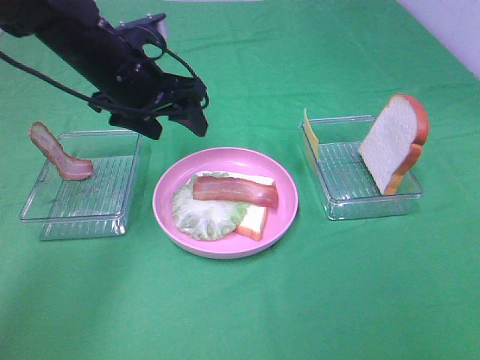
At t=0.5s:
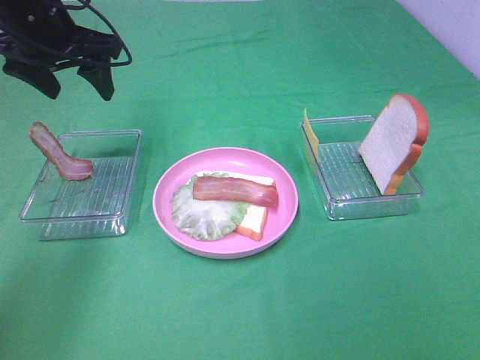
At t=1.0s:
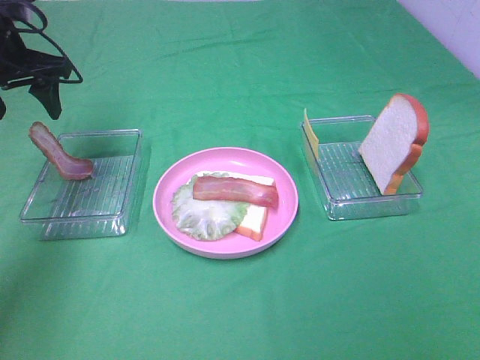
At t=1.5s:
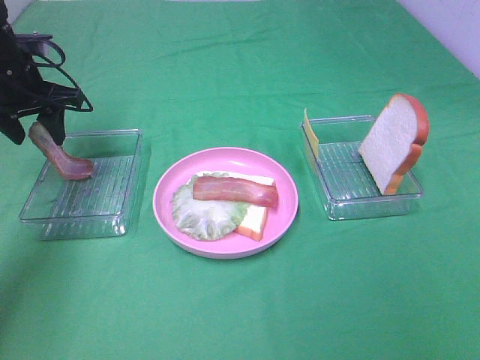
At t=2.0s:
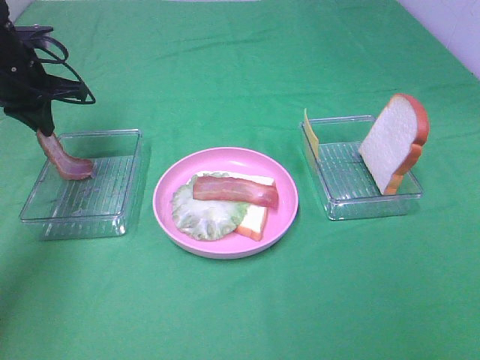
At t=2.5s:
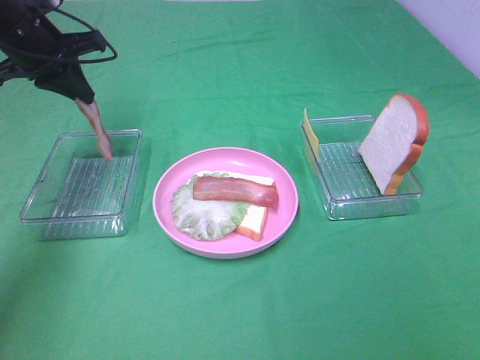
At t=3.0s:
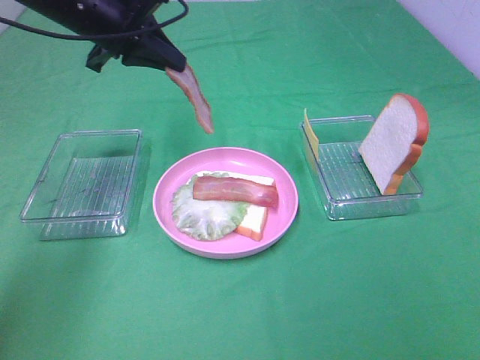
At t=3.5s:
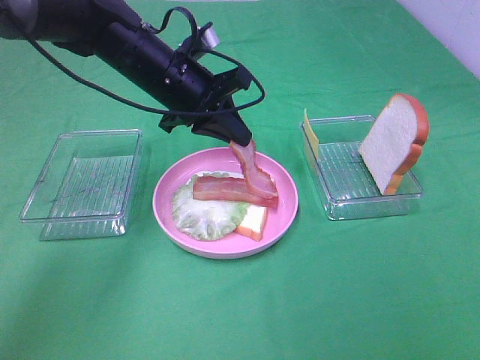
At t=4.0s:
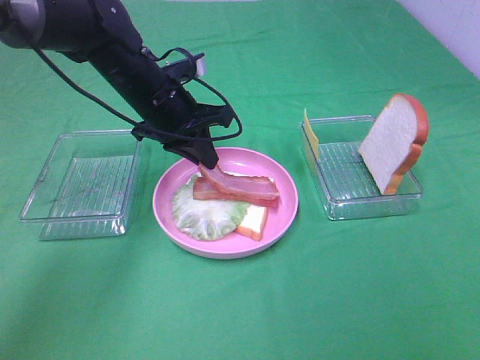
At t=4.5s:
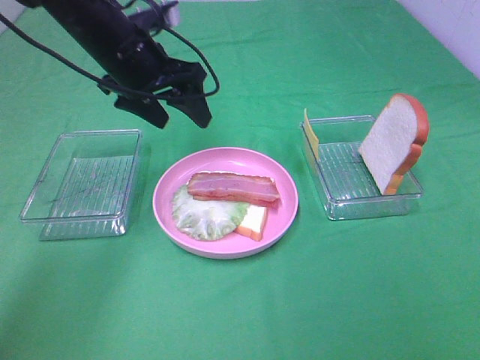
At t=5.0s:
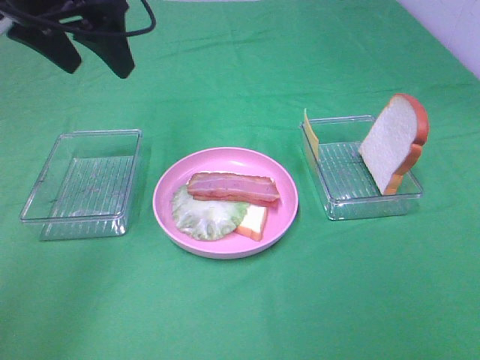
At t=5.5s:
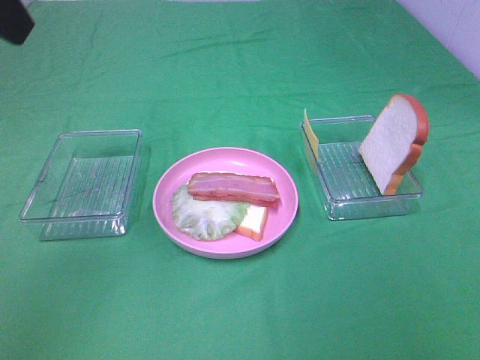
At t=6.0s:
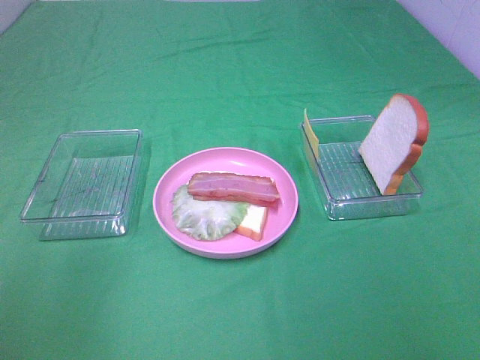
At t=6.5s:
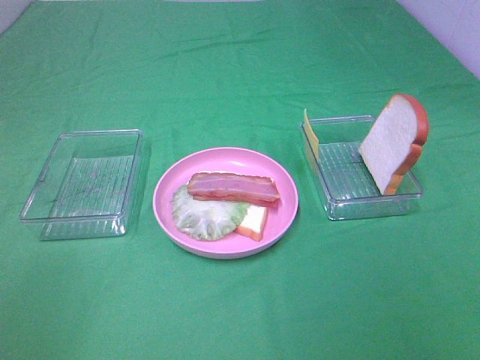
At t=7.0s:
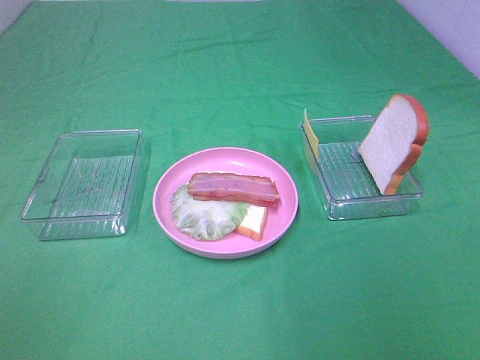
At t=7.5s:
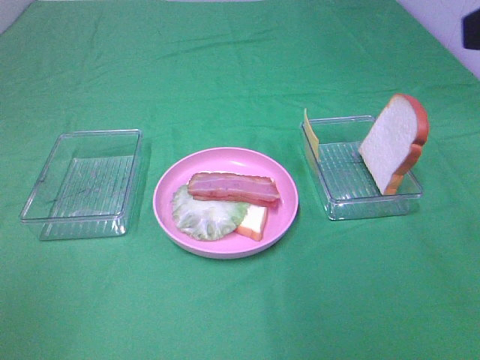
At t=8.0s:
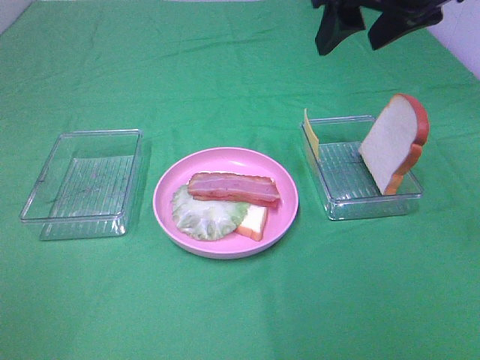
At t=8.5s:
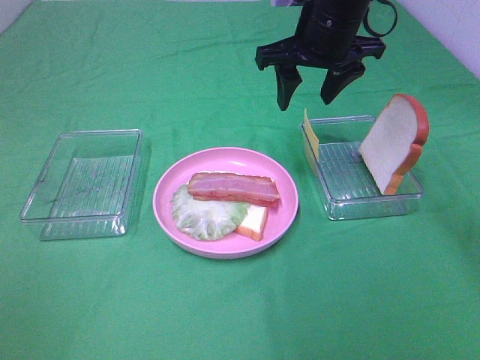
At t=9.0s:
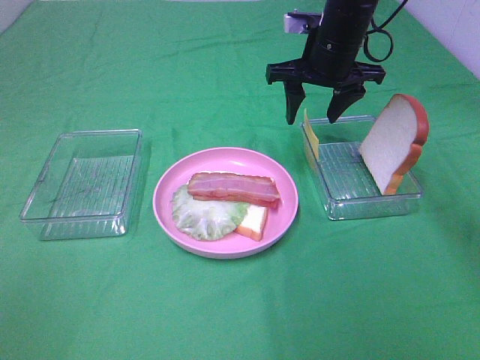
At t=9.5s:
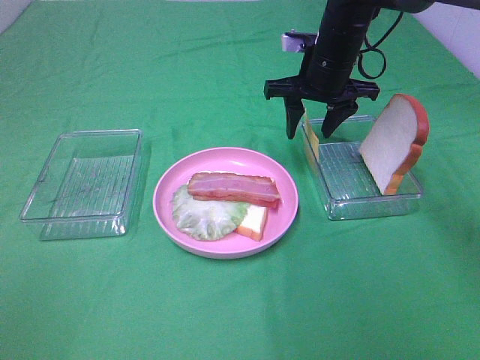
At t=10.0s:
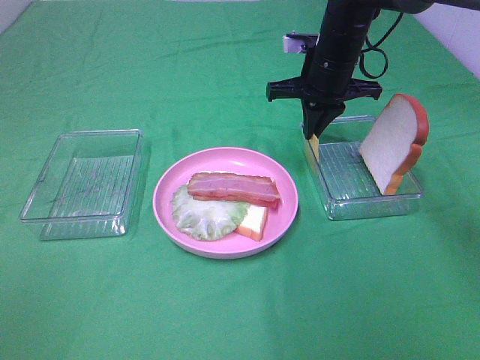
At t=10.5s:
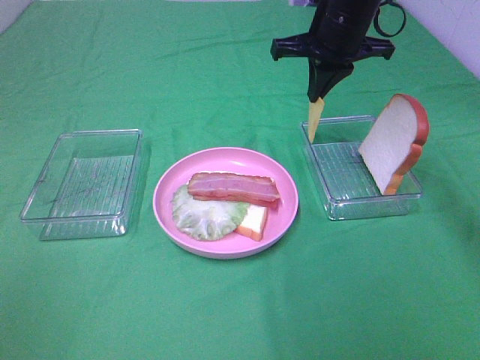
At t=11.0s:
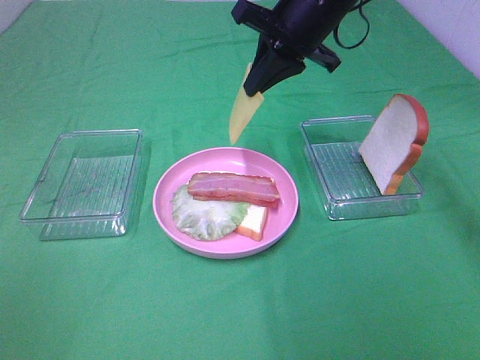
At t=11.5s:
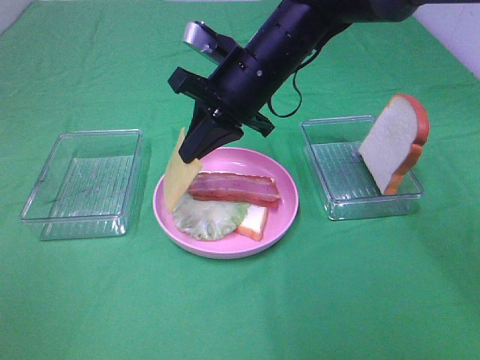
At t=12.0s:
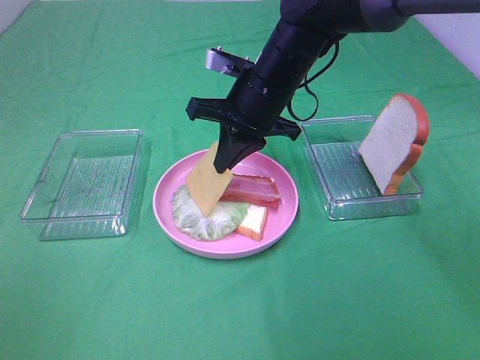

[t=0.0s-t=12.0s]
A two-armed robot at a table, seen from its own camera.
Task of the whole recording: Make sandwiches.
Step, t=0.0s to t=2.0s: Left hand:grab the bacon.
Step, t=2.5s to t=4.0s: Left hand:place bacon on bacon.
Step, t=4.5s to t=10.0s: Right hand:grab the cheese slice.
t=0.0s to t=2.0s: The left gripper goes roughly 15 cm to the left and forward, and closes its fingers.
t=2.0s to t=4.0s: The left gripper goes some 20 cm to the right.
t=4.0s to t=6.0s: The left gripper shifts approximately 35 cm backward, upward and to the left, and opens.
t=6.0s to t=8.0s: The left gripper heads backward, covering roughly 15 cm. Meanwhile the right gripper goes some 35 cm forward and to the left.
t=8.0s to t=10.0s: The right gripper travels downward and forward by some 20 cm, and closes its fingers.
t=10.0s to t=12.0s: The right gripper travels to the left and backward by about 10 cm.

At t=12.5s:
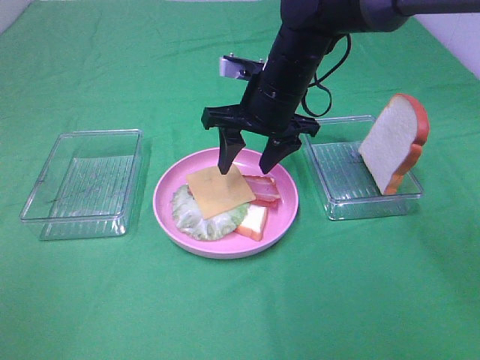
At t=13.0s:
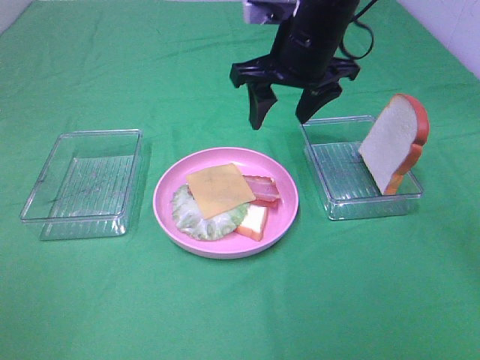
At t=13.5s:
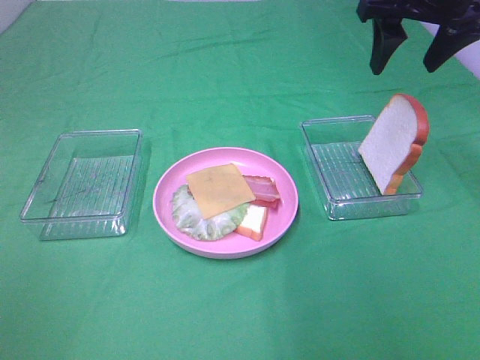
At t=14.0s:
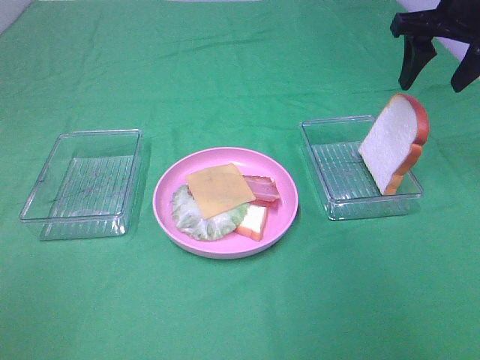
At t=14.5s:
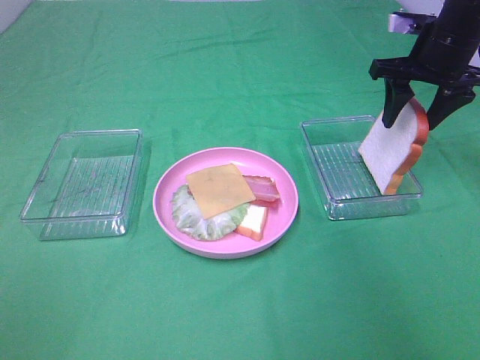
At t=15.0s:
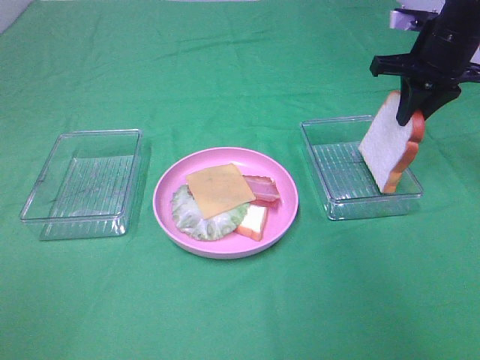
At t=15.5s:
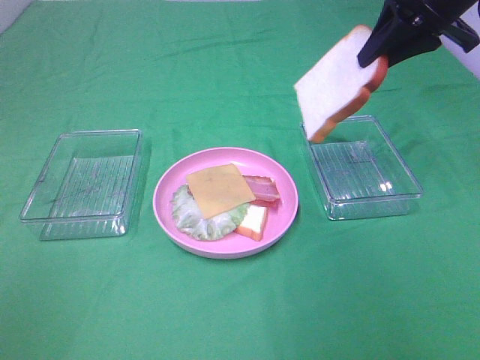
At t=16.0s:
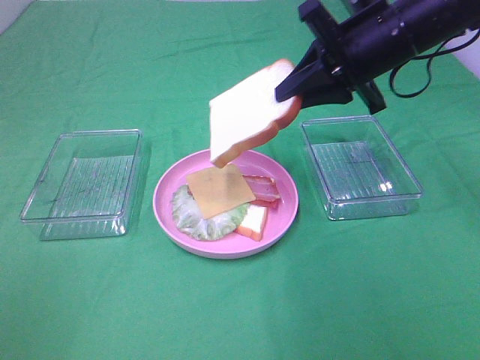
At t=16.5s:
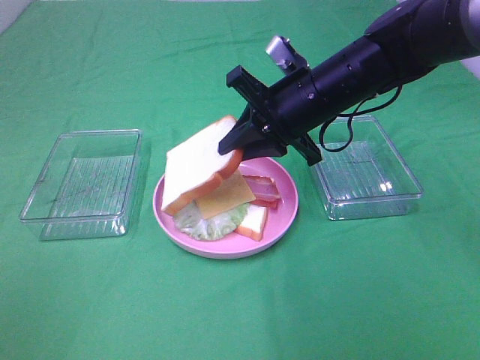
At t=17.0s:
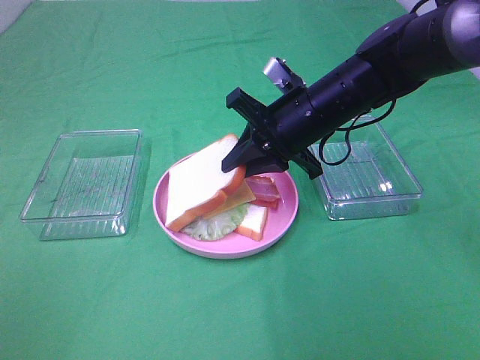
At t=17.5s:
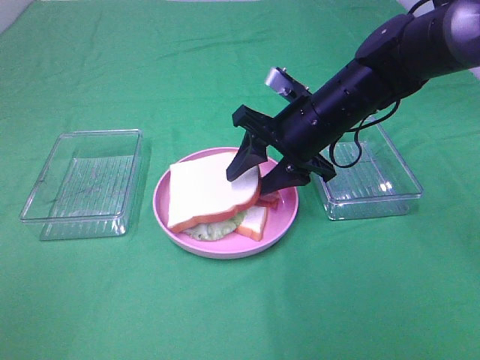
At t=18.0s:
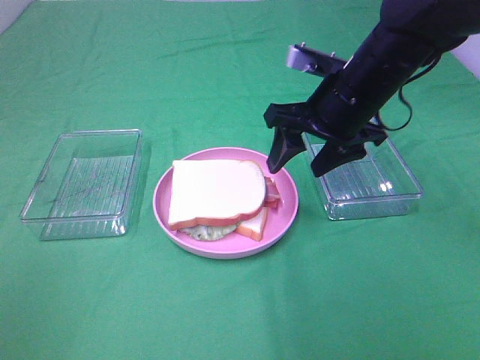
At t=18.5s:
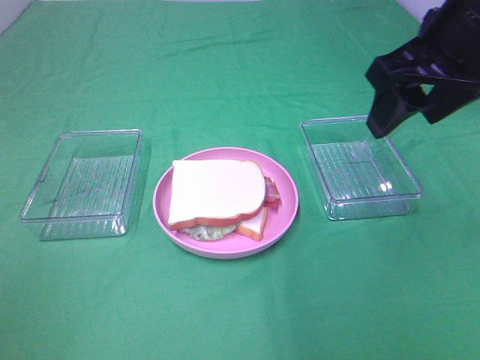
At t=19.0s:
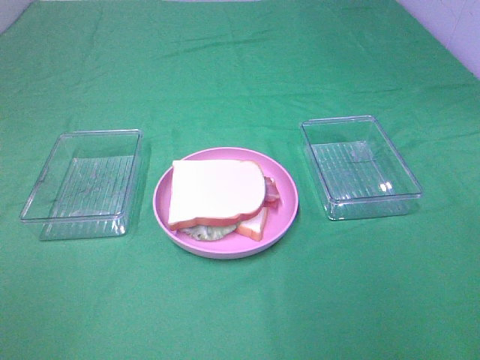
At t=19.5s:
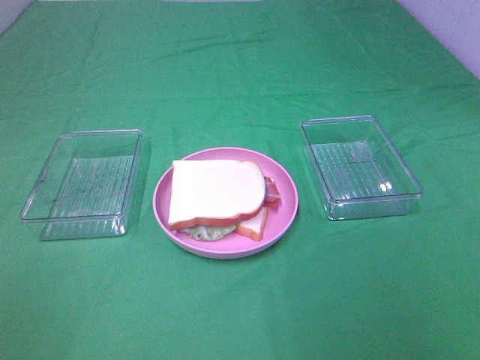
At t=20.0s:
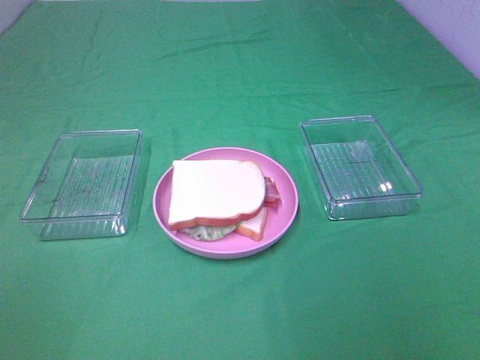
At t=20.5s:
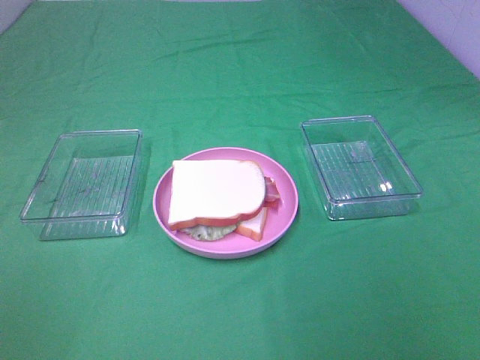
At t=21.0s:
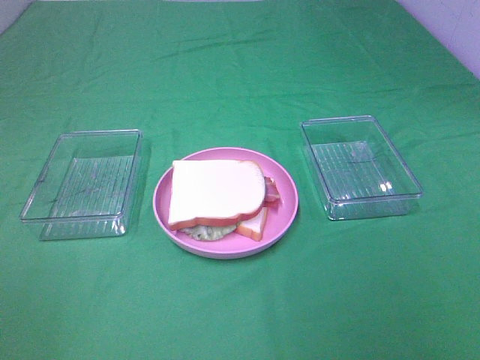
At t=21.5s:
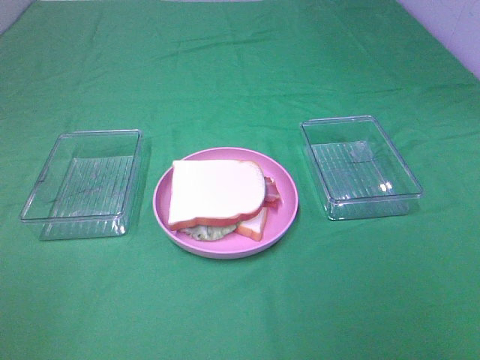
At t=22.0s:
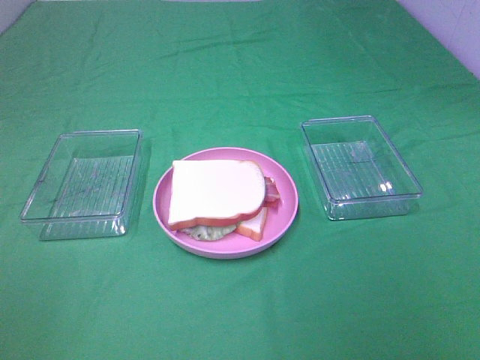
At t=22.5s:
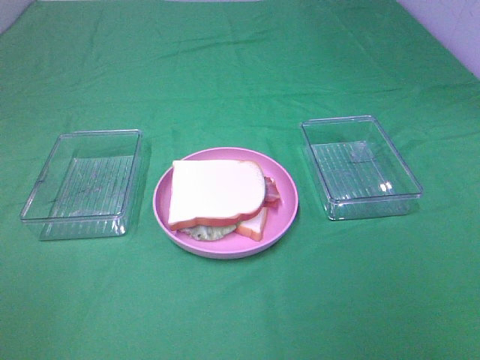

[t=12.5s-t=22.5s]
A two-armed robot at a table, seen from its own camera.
Task of the whole recording: Make sandwiches.
Step, t=15.0s to t=17.5s: Right hand:place the bread slice on the cheese slice.
t=12.5s to t=14.5s: The right gripper heads to the right, covering about 20 cm.
t=14.5s to t=16.5s: The right gripper is displaced to the left and backward by some 20 cm, and closes up.
t=16.5s to t=18.5s: The right gripper travels upward, backward and to the right by about 20 cm, and opens its fingers.
t=18.5s to t=20.5s: The right gripper goes roughly 25 cm backward.

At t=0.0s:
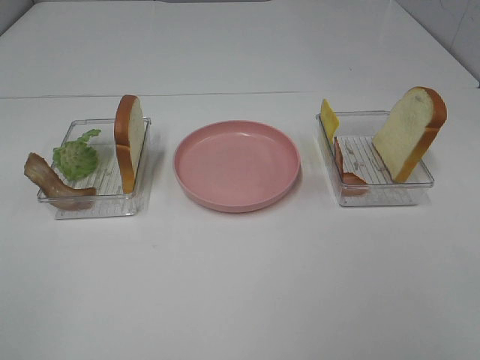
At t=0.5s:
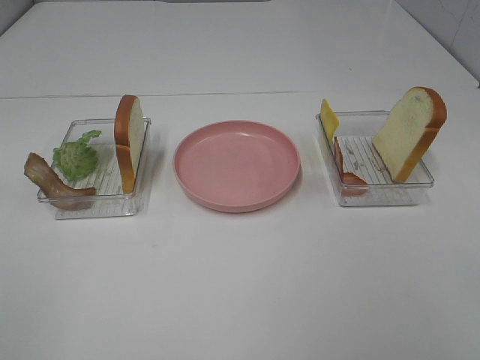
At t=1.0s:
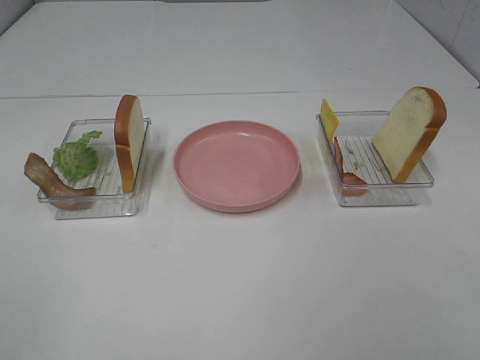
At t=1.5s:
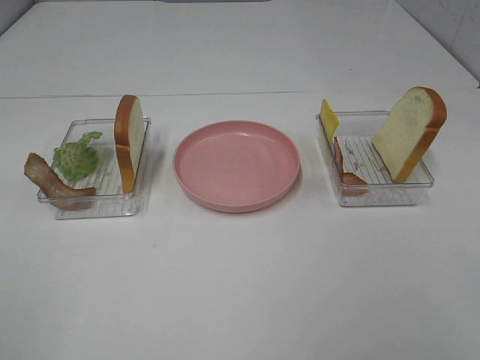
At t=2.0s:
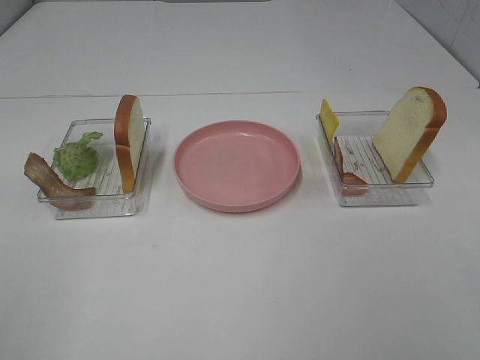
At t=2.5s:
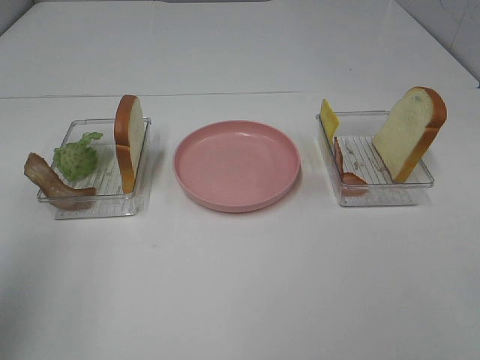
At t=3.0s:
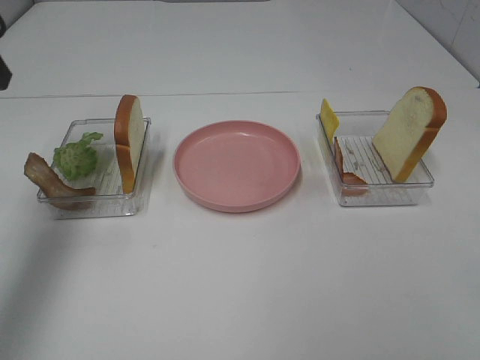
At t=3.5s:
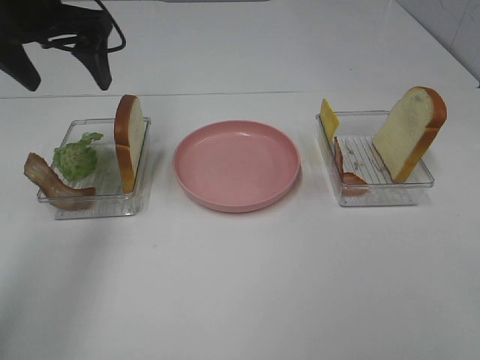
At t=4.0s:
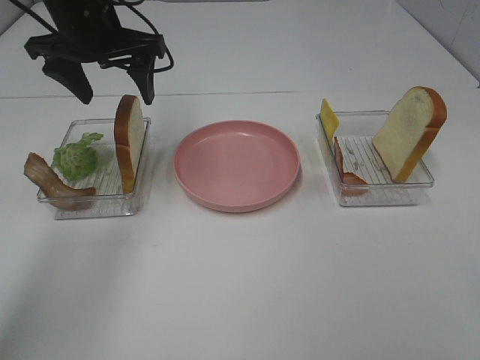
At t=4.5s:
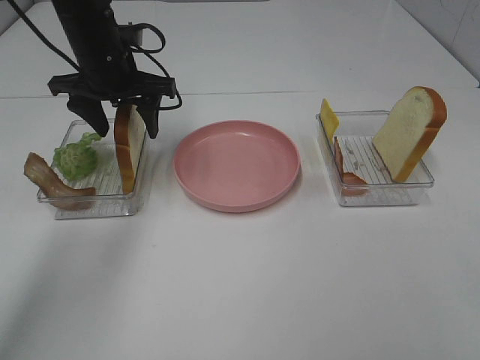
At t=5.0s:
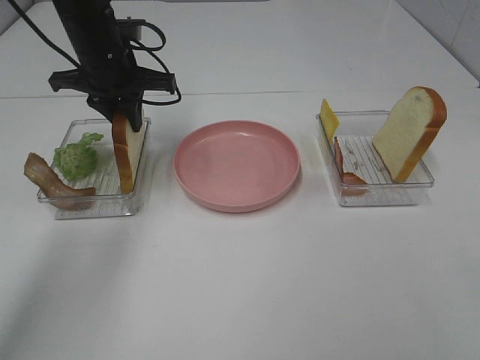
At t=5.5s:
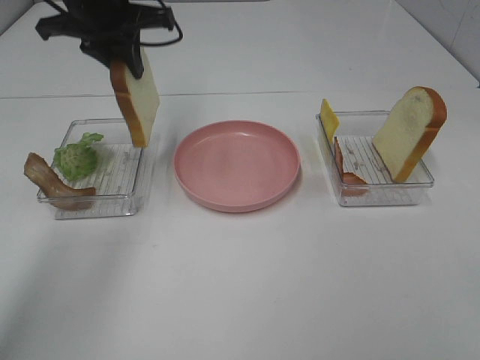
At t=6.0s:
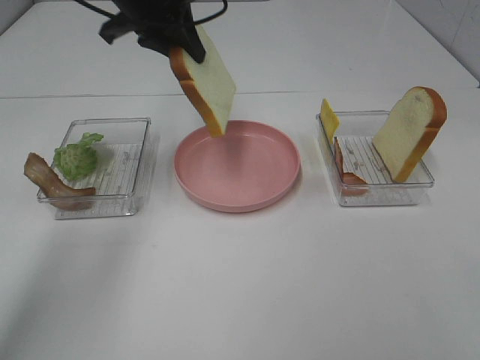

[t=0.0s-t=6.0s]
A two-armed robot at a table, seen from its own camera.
Task of the whole recording: Make sandwiches.
Step, t=0.0s to t=5.0s: Left hand:grab the bread slice.
t=2.0s to t=4.0s: The left gripper shifts some 40 cm forward.
t=4.0s to t=6.0s: The left gripper reaches some 5 cm downward, then returns, and closes up.
